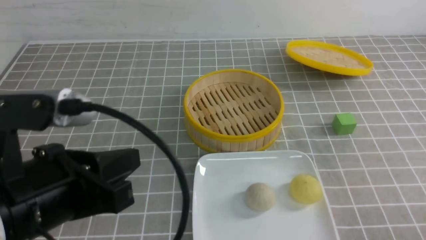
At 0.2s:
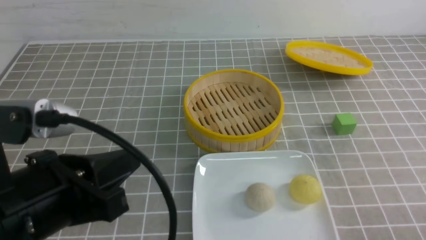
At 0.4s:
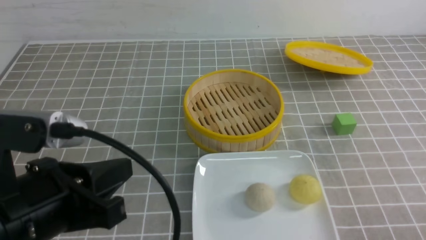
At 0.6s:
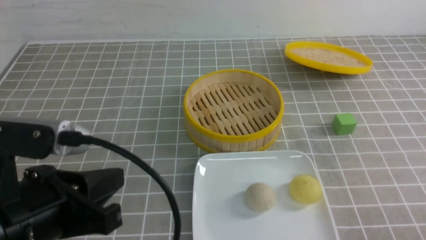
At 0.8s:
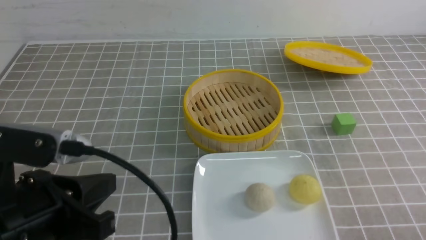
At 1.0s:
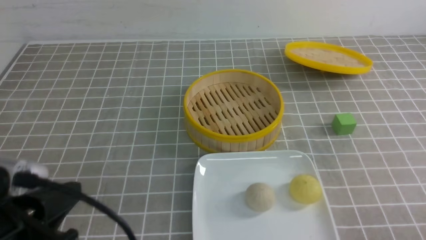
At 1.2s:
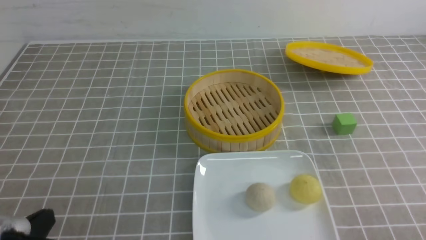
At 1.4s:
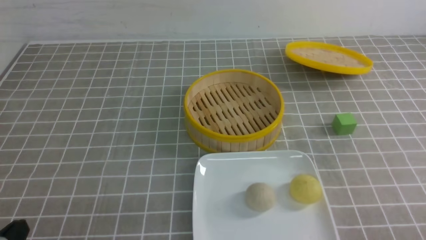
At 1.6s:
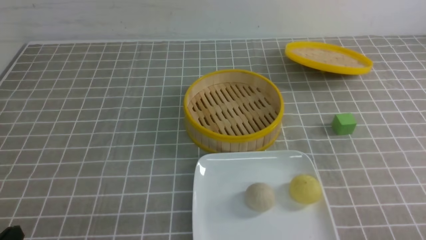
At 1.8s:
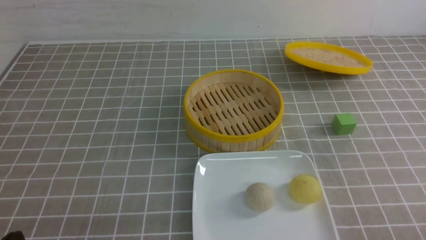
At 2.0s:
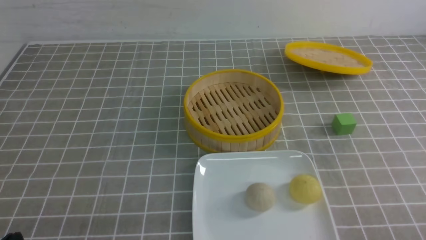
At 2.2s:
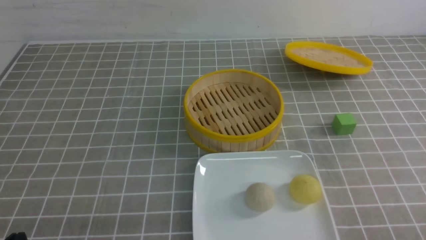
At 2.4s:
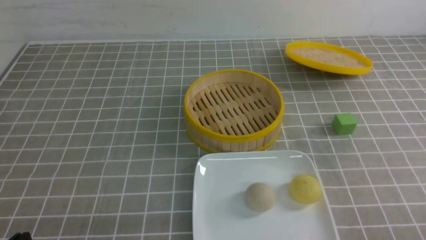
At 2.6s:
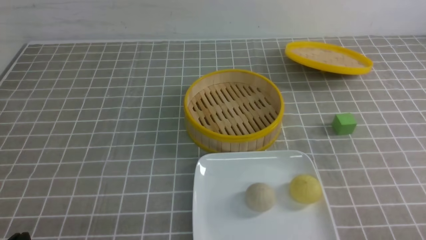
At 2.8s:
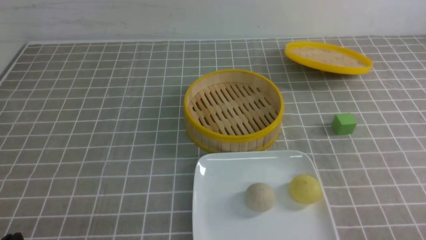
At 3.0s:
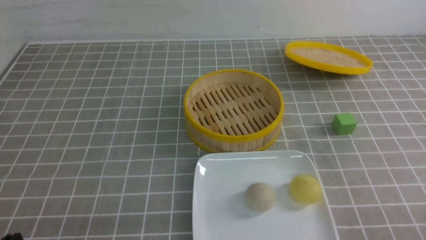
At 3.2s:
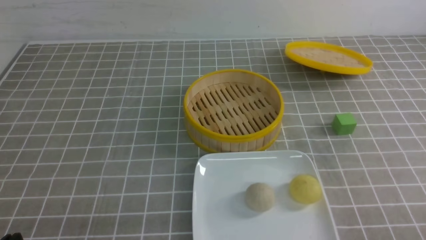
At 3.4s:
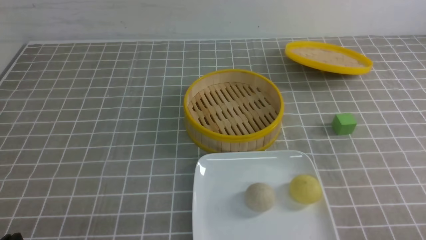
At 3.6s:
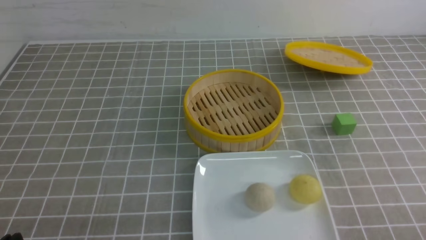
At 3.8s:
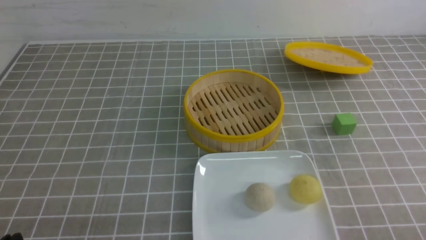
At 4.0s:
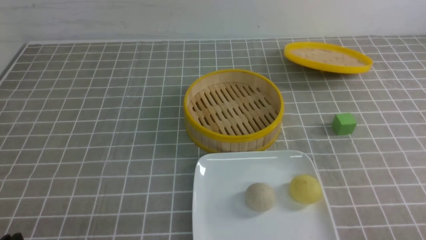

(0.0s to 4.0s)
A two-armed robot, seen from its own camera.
0.0s - 1.4s: The left gripper shifts approximately 15 cm downward, to the left and backward.
2.6s - 4.0s: The two grippers keep their place.
